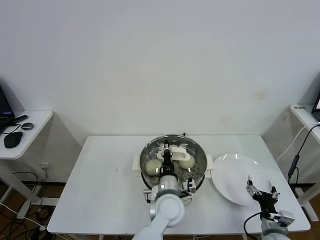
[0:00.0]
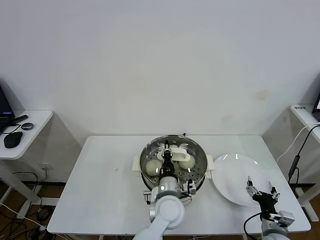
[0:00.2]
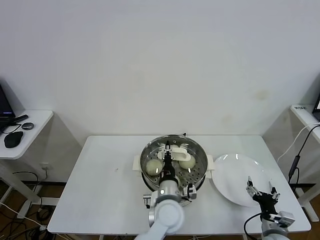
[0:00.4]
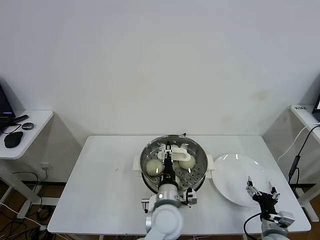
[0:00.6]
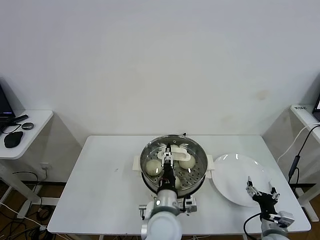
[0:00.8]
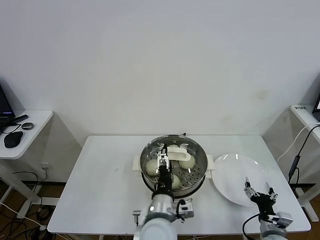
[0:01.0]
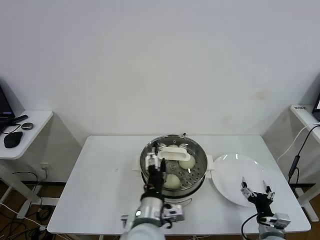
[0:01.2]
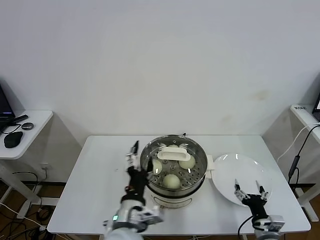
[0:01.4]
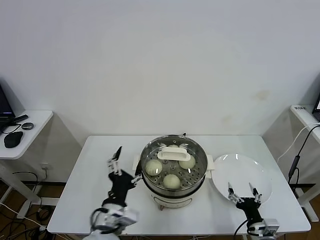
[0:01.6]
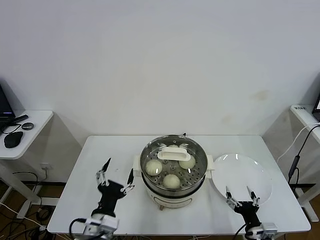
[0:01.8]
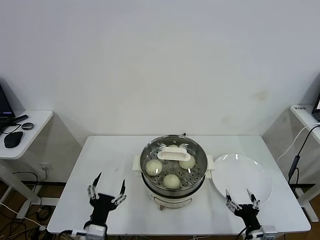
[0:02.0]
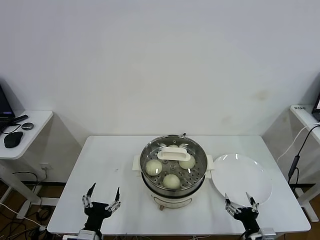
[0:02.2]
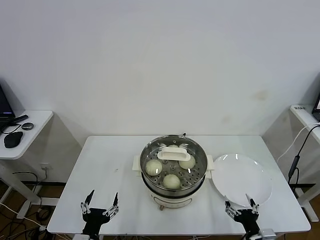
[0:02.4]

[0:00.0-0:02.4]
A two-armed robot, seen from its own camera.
Task of the whole recording: take steamed baozi put them in steamer.
0:00.0 to 0:01.2: The left gripper shifts approximately 15 cm backward, upward and to the left, and opens its fingers.
0:01.2 to 0:02.4: The right gripper shifts some 5 cm backward. Meanwhile the left gripper heads to the left and downward, covering approximately 20 cm.

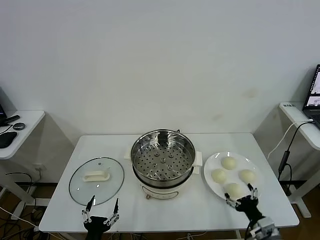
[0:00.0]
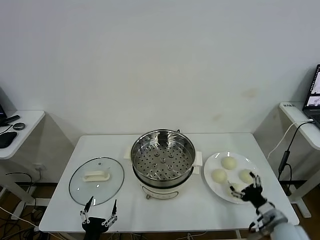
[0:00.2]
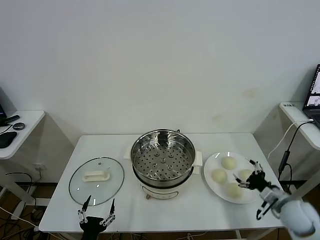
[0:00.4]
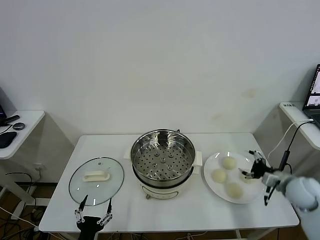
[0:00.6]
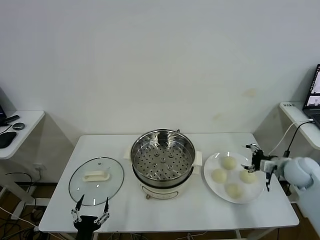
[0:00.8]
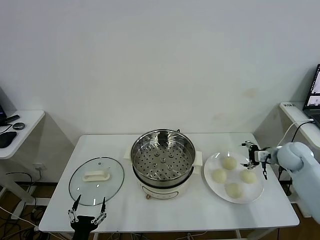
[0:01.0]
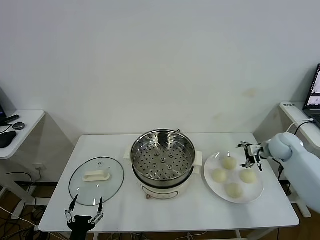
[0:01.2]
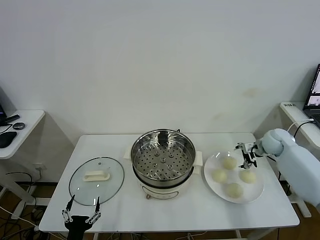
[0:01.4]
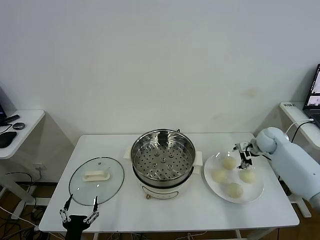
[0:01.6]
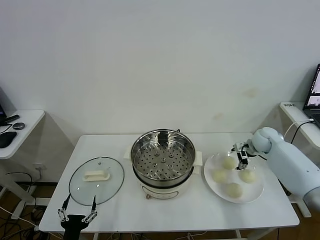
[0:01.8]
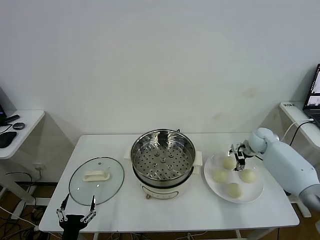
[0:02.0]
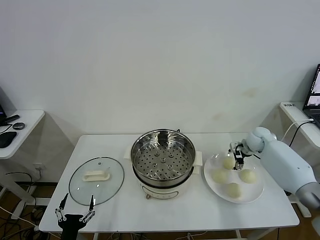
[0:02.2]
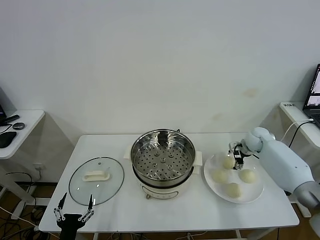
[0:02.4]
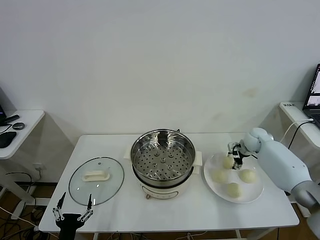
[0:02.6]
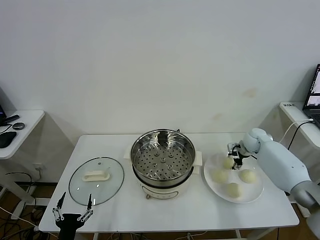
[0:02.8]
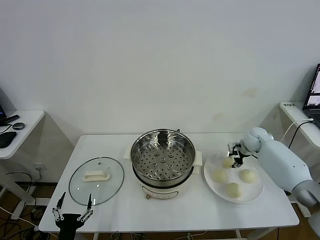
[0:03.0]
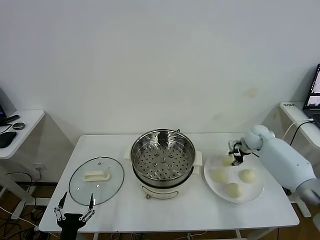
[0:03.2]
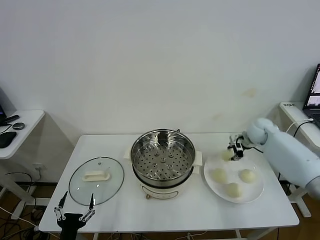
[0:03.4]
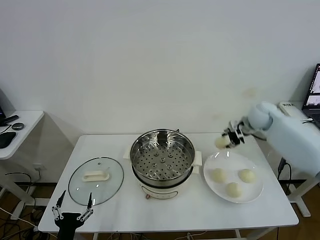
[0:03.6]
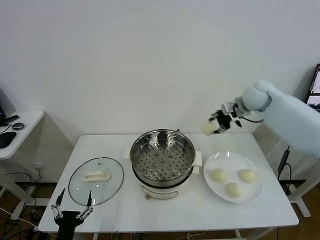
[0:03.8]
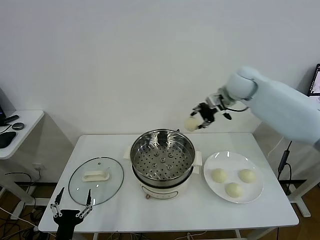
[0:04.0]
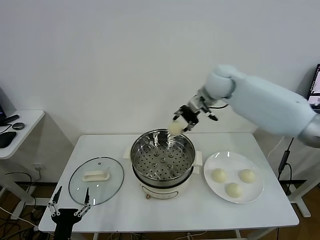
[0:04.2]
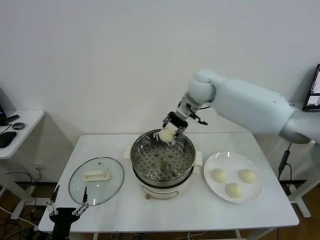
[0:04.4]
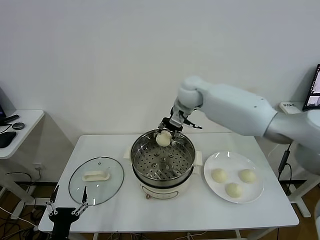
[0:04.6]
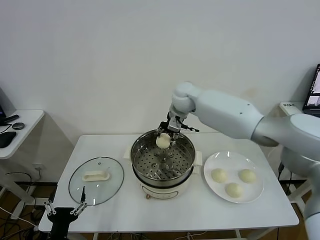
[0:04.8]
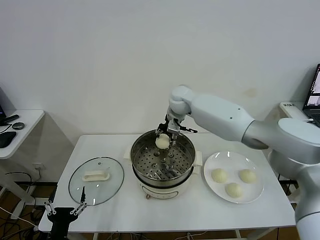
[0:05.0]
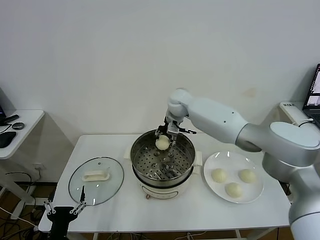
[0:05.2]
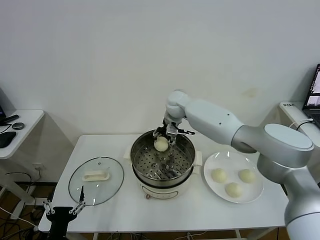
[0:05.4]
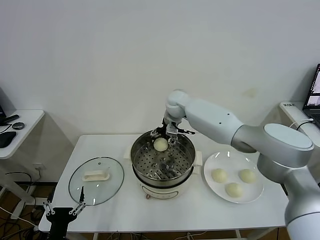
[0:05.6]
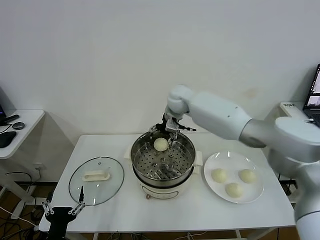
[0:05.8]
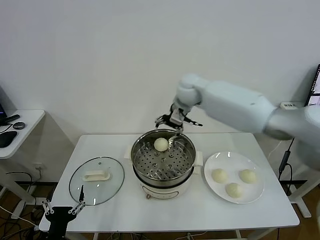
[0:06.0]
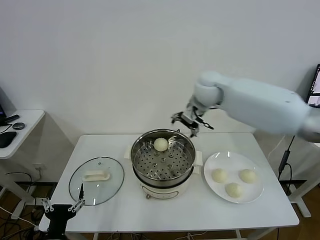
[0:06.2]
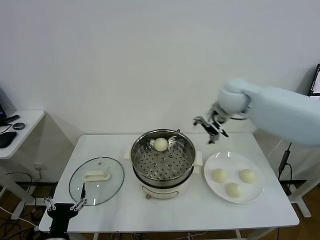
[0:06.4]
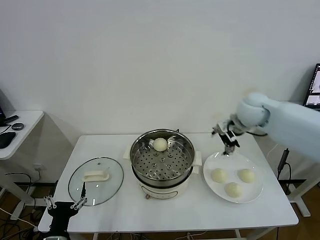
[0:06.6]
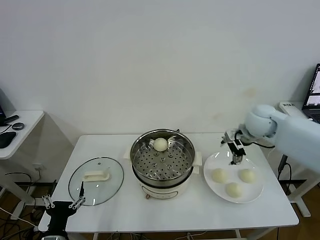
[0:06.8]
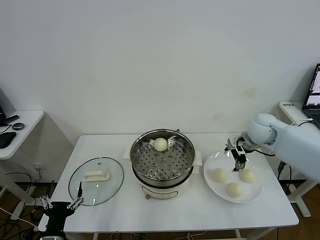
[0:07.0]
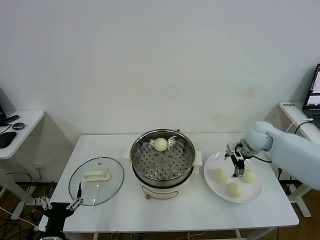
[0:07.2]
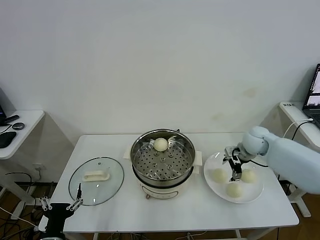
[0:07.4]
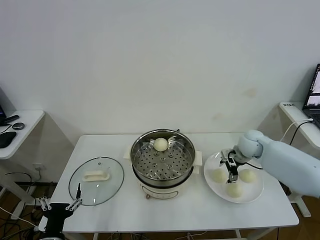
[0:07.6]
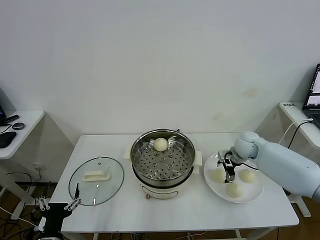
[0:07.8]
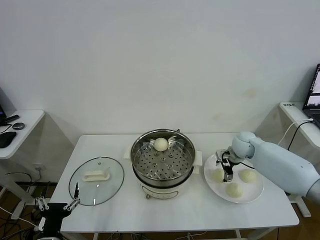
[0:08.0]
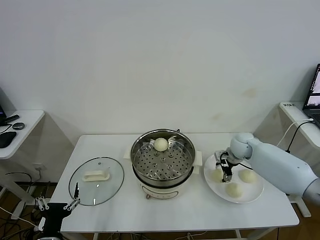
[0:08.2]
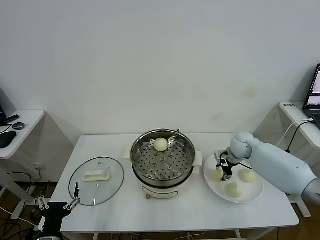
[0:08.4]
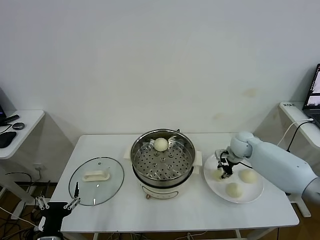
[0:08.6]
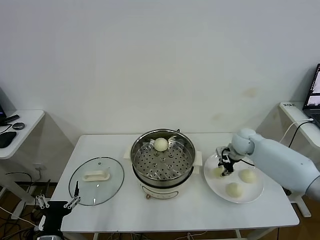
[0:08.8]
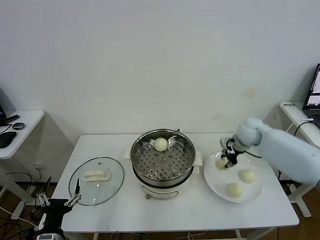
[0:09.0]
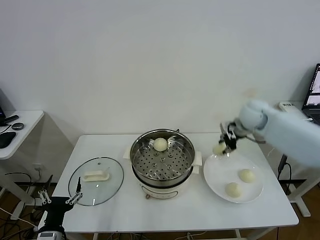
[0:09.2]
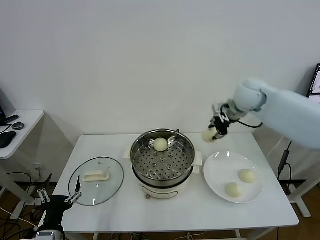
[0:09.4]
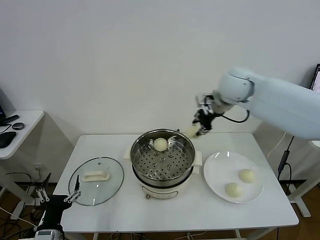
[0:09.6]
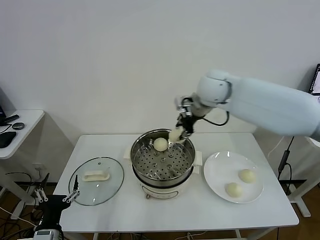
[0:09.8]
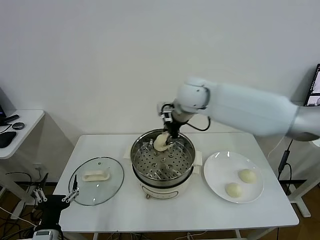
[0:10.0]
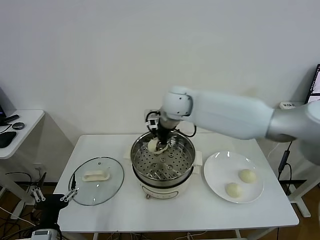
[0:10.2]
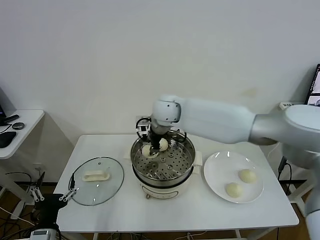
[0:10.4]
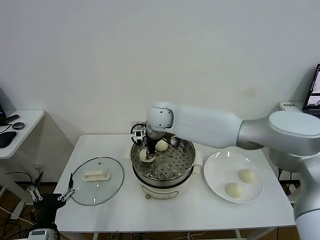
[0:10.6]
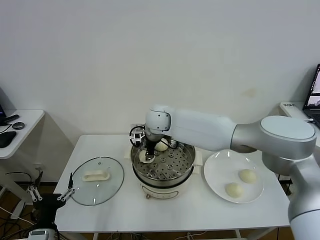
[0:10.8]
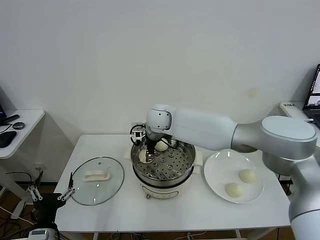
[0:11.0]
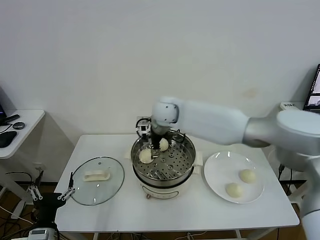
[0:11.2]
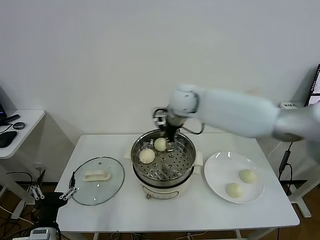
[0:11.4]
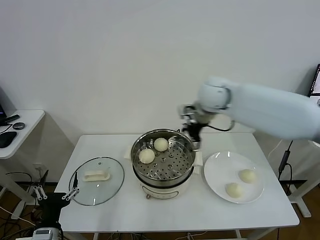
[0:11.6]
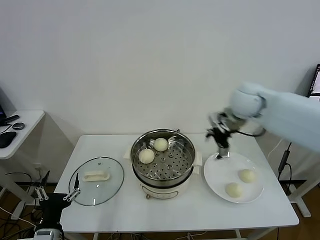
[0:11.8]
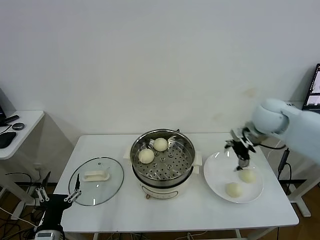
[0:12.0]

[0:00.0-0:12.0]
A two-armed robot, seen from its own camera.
Task of the whole recording: take steamed baozi put them in steamer.
Step, 0:00.0 to 0:02.6: Grasp the baozi in the plate with right gripper.
Step, 0:02.8 to 0:05.4: Place the baozi on the steamer with right gripper.
Step, 0:05.8 to 0:08.4: Grasp the baozi in the plate with right gripper.
Step, 0:08.6 to 0:11.2: Place the baozi on the steamer with right gripper.
0:01.6 to 0:03.0: The right gripper closes.
0:03.0 to 0:04.4: The right gripper travels to the left and upward by roughly 35 cm.
0:04.4 to 0:06.0: The right gripper travels downward and back again, about 10 cm each way, and opens.
0:06.0 to 0:07.6: The right gripper moves to the right and downward, approximately 30 cm.
0:07.6 to 0:09.0: The right gripper goes about 5 cm upward, and closes up.
0:09.0 to 0:10.4: The right gripper goes approximately 30 cm to the left.
0:10.4 to 0:12.0: The right gripper goes approximately 30 cm to the right, and opens its fingers.

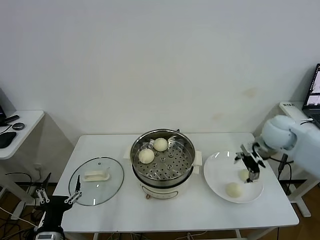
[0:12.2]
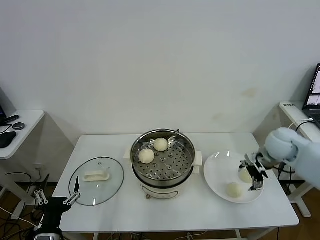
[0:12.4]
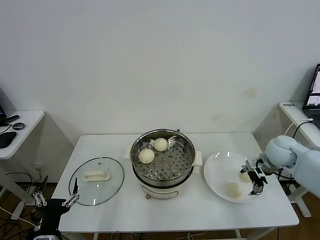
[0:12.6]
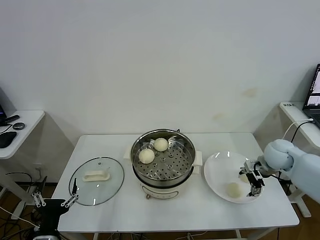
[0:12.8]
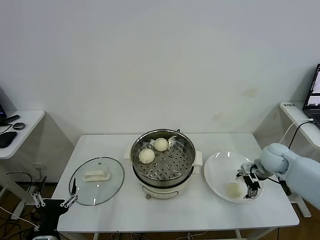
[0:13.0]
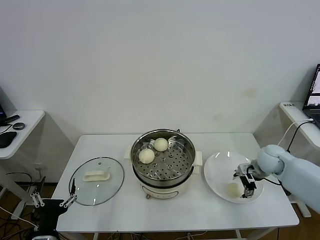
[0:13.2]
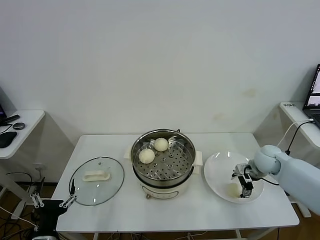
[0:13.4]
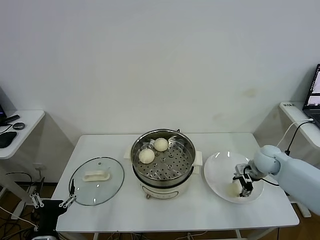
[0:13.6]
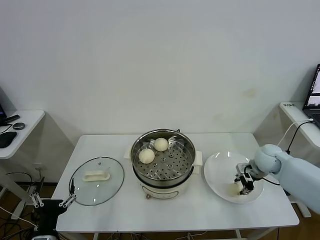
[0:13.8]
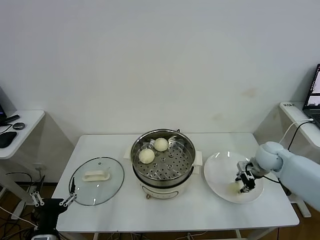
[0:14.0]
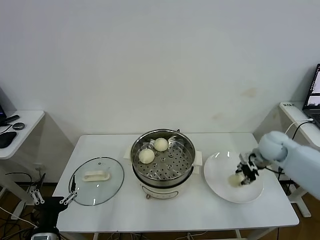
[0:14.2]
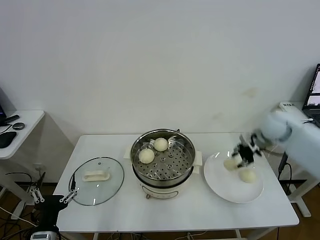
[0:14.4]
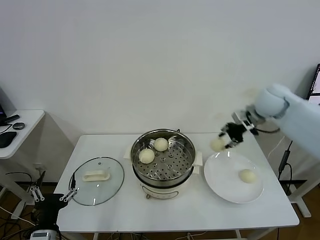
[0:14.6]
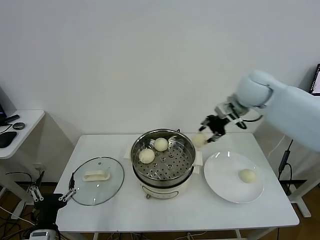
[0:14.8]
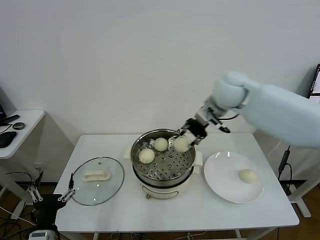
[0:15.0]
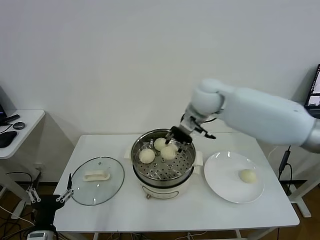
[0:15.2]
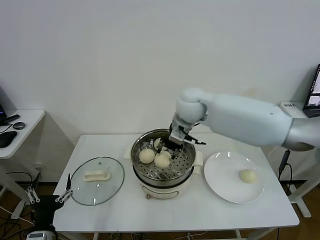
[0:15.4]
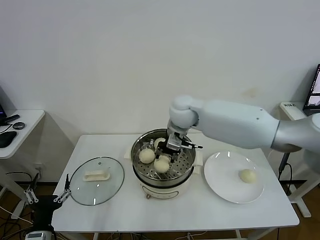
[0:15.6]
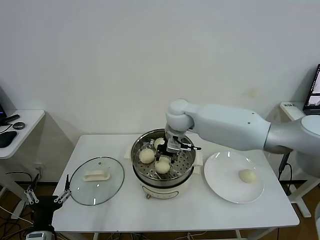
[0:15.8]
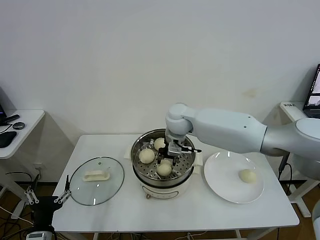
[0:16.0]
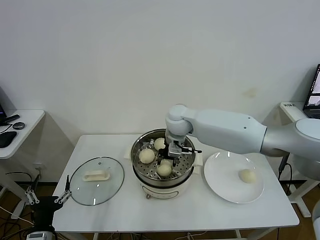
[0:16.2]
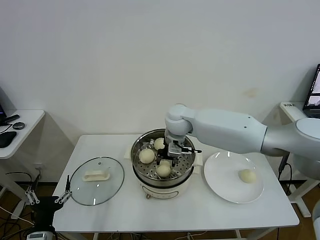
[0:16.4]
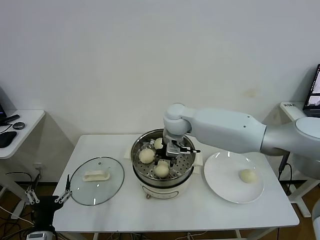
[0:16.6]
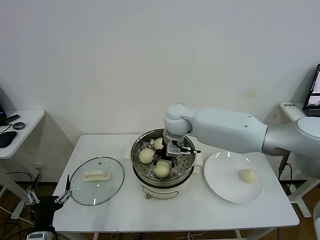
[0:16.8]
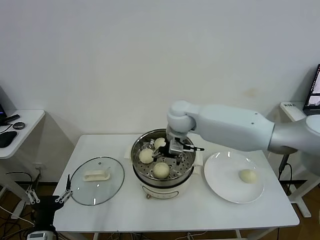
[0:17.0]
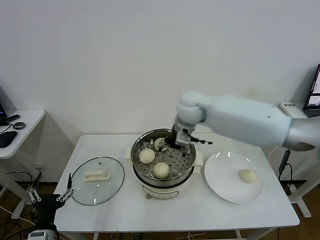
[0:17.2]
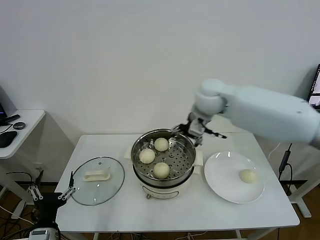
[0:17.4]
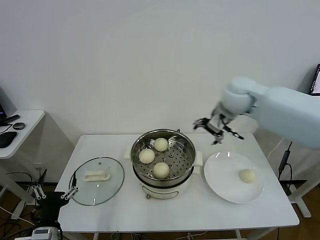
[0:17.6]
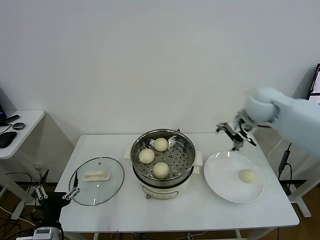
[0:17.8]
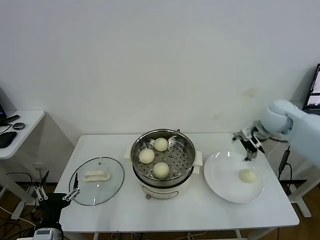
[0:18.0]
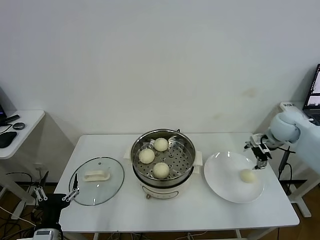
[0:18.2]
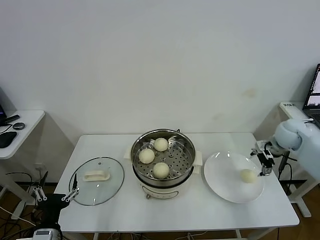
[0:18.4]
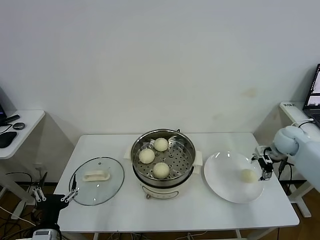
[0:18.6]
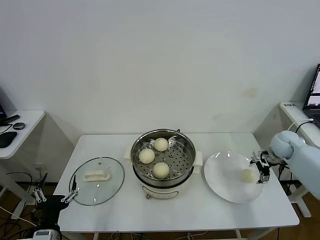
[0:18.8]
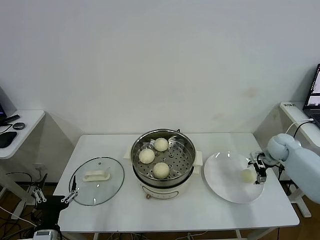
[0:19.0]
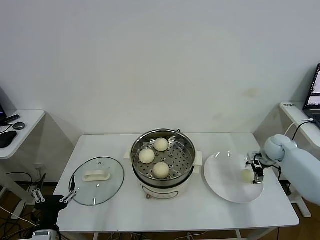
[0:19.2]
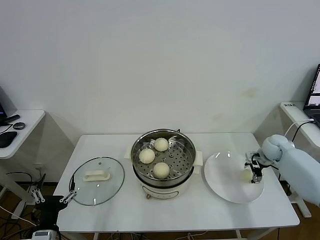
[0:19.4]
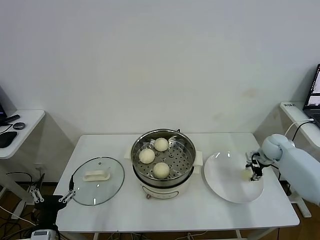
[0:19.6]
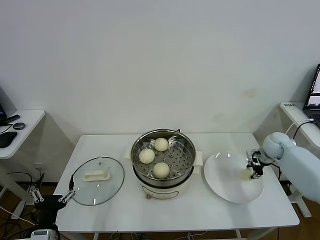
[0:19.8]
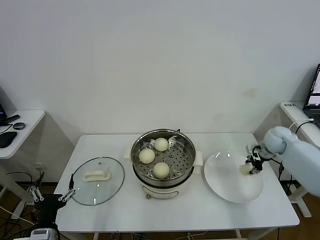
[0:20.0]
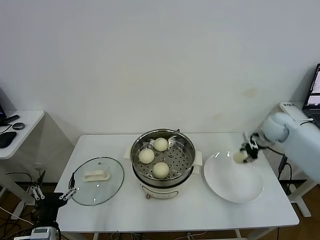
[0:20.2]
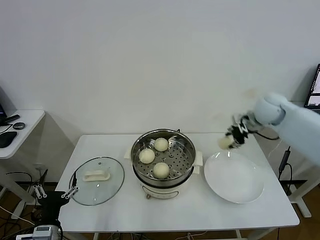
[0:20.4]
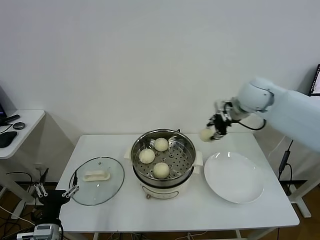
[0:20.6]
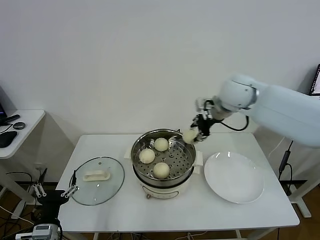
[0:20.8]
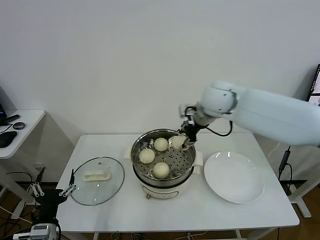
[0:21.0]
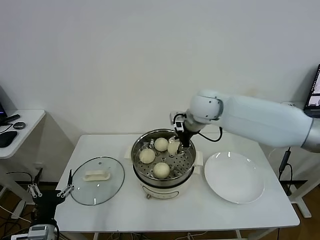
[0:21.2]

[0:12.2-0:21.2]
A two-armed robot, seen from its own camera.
Task of the whole recording: take steamed baozi put them in steamer.
Step, 0:12.2 to 0:13.6: Grasp the baozi in the plate with right gripper.
Step, 0:13.8 to 0:17.0: Place the baozi on the steamer with right gripper.
Step, 0:17.2 to 0:19.6: Grasp the baozi in the plate with right gripper.
0:12.2 to 0:13.8: The right gripper is displaced downward by about 10 cm, and closes.
0:13.8 to 0:15.2: The right gripper is displaced to the left and upward by approximately 35 cm.
0:15.2 to 0:16.6: The right gripper heads downward and to the left, covering some 10 cm.
0:16.6 to 0:18.2: The right gripper is displaced to the right by approximately 35 cm, and opens.
0:18.2 to 0:19.8: The right gripper heads downward, covering about 10 cm, and closes up.
0:19.8 to 0:21.2: The right gripper is displaced to the left and upward by roughly 35 cm.
